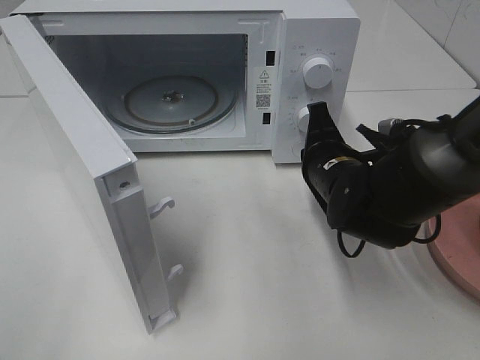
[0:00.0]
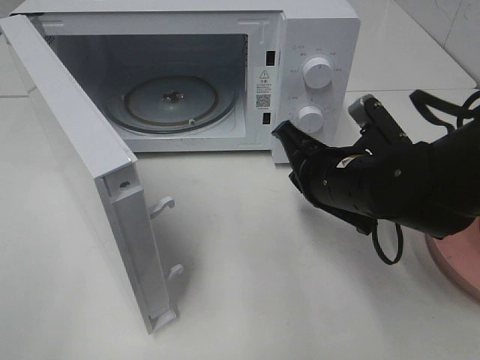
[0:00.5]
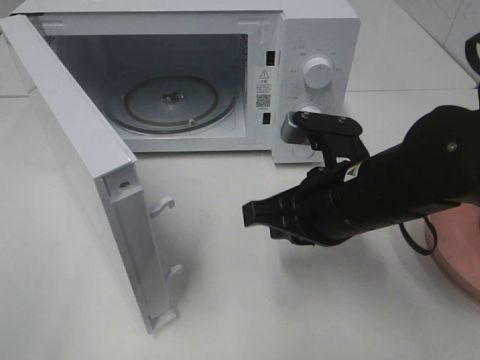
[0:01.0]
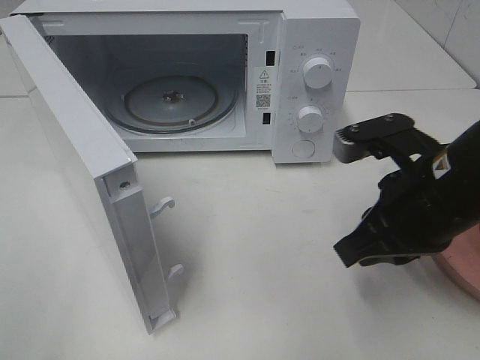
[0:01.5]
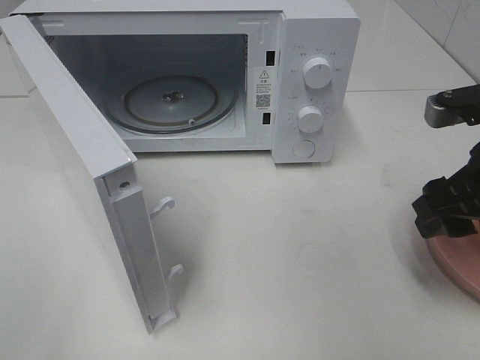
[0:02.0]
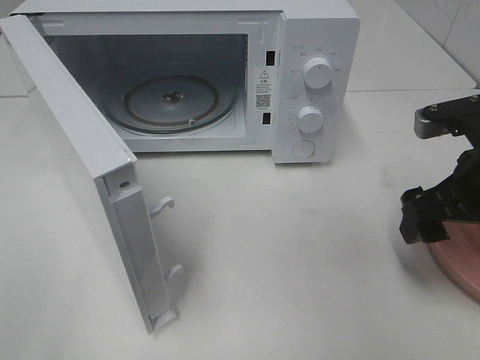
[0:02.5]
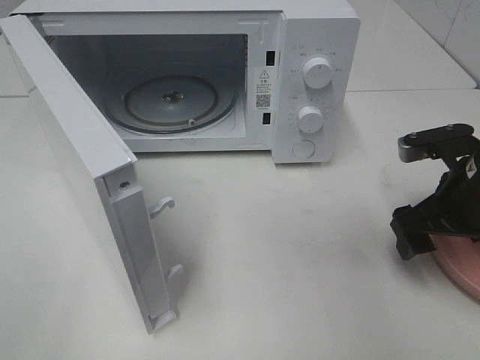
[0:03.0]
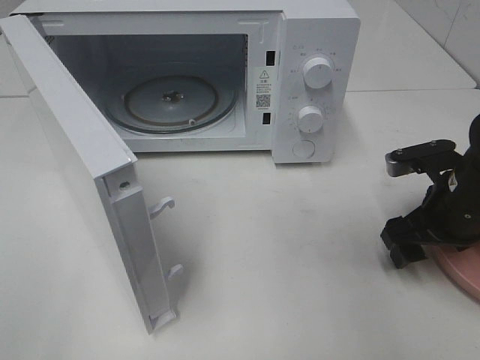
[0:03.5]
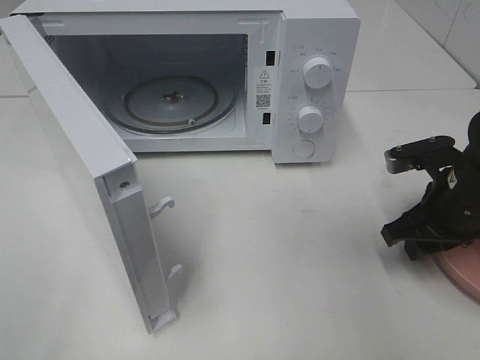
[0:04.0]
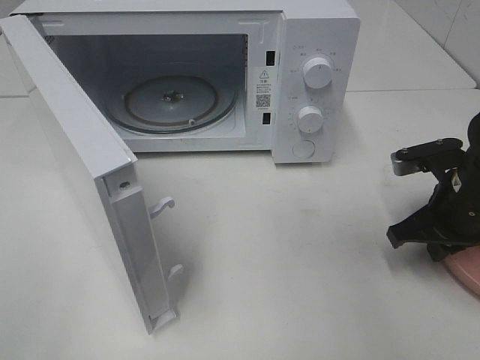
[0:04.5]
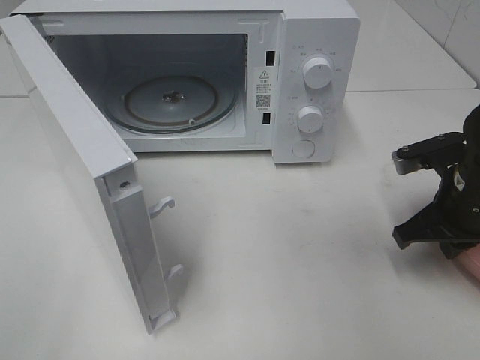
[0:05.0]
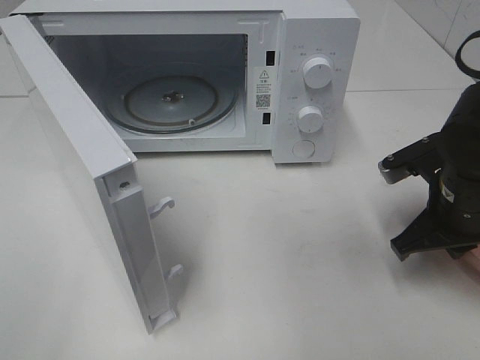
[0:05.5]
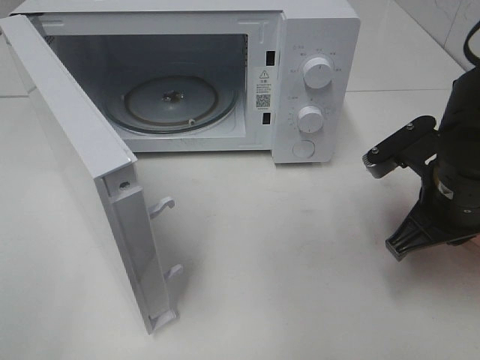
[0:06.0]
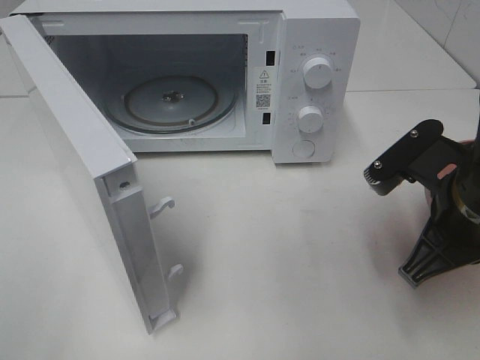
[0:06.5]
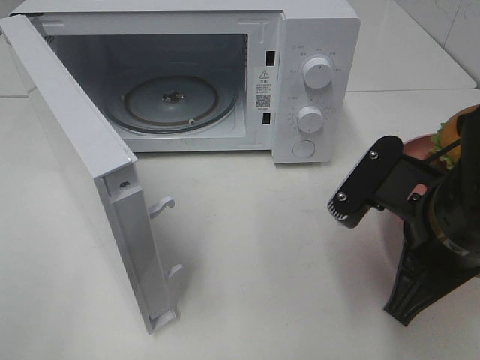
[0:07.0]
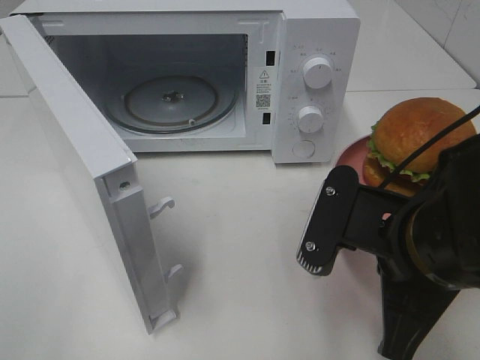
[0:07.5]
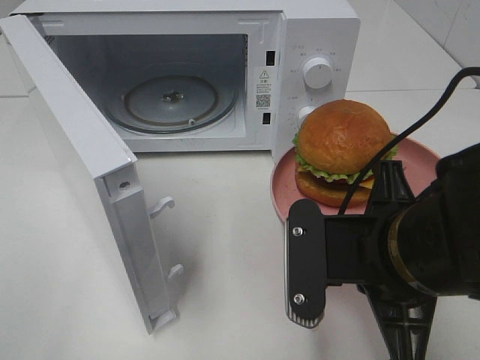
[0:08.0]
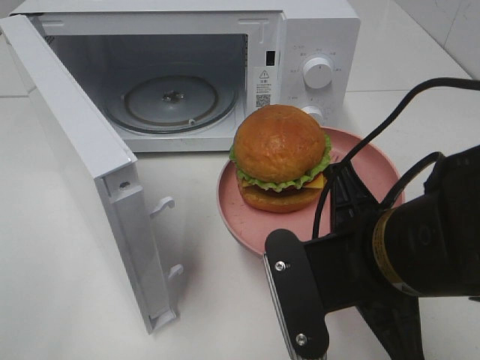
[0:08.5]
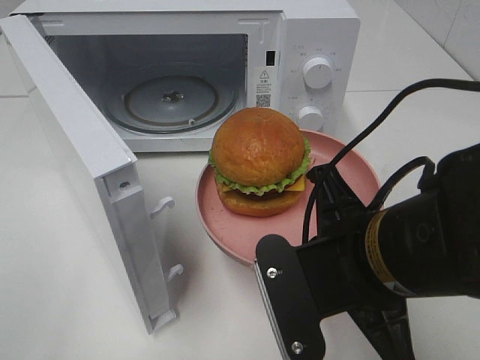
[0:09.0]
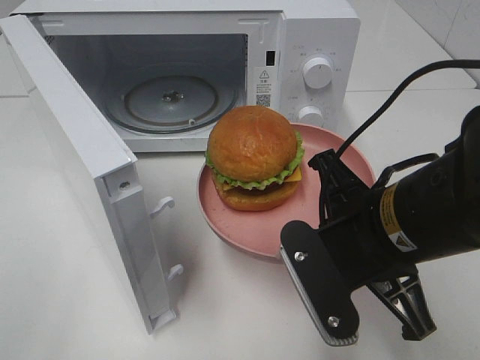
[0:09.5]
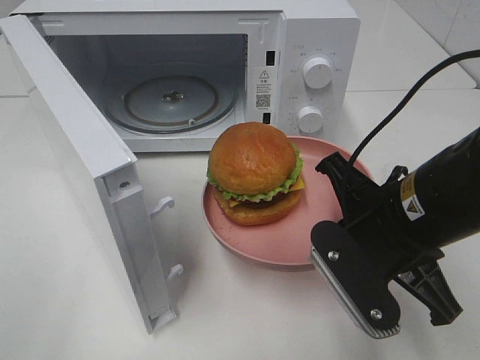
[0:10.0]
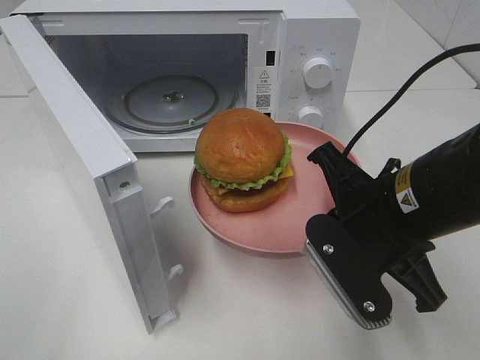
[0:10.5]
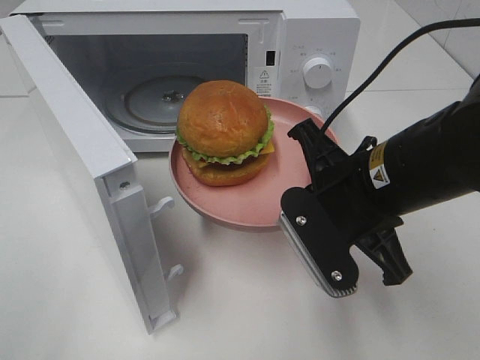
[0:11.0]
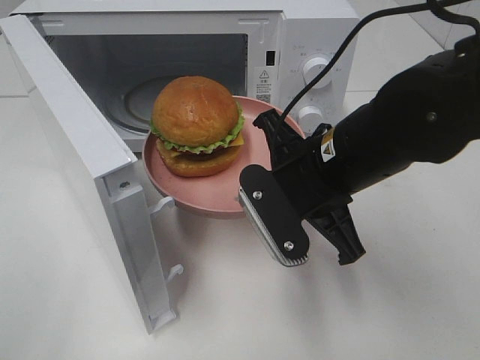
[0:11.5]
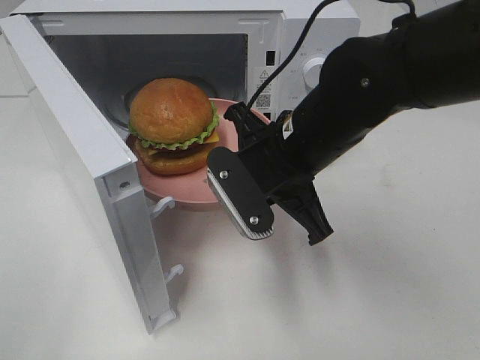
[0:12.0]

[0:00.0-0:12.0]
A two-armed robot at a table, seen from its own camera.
Task of the whole recording: Heat the burger.
Step, 0:00.5 to 0:05.0: Right hand: grab the plate with the hamburger.
0:00.0 to 0:02.0: The right gripper is displaced to the right, upward and backward by approximately 20 cm, and opens its fingers.
0:02.0 to 0:04.0: The right gripper travels downward and forward by about 10 cm.
0:04.0 to 0:06.0: The right gripper changes place by some 5 cm, and closes up.
0:06.0 to 0:08.0: The right gripper goes approximately 15 cm backward and to the left.
0:08.0 to 0:10.0: The right gripper ends up about 5 cm from where it was.
0:10.0 to 0:12.0: The right gripper shifts roughly 10 cm forward and to the left.

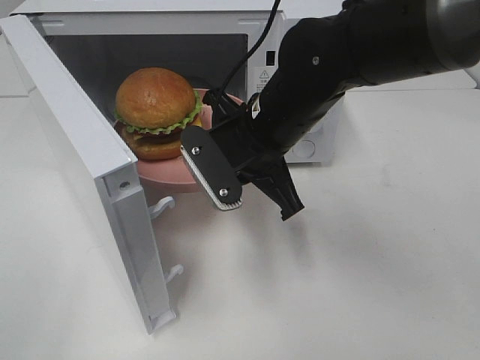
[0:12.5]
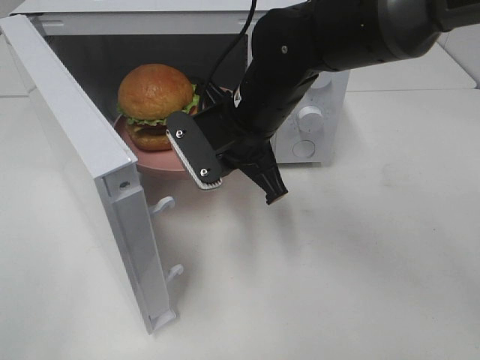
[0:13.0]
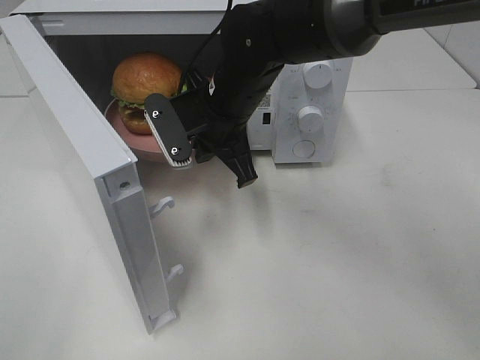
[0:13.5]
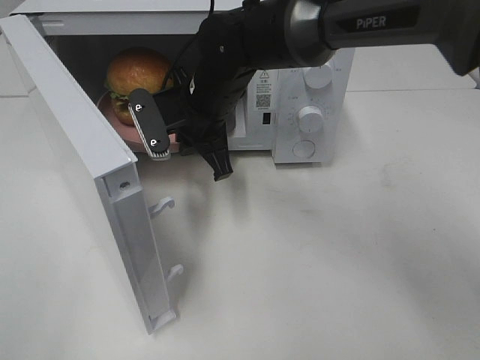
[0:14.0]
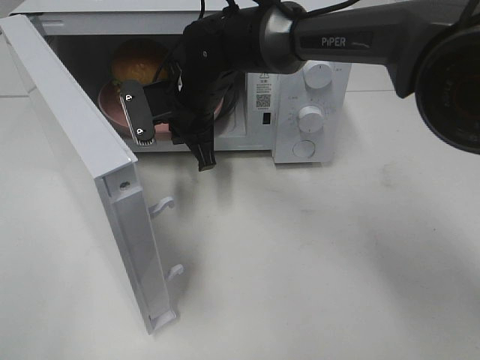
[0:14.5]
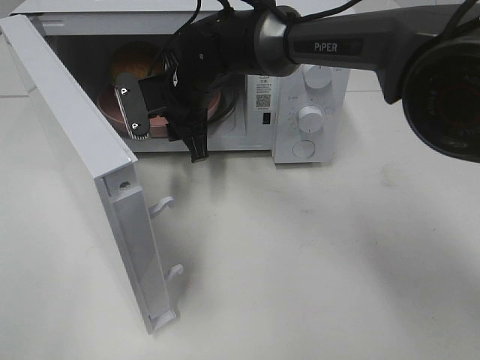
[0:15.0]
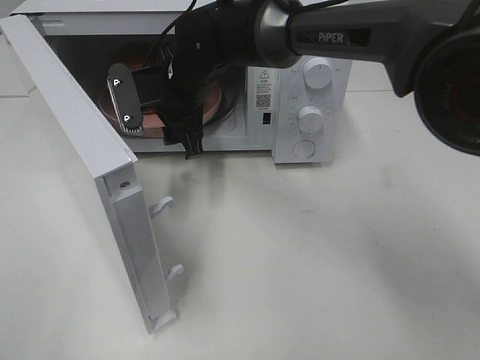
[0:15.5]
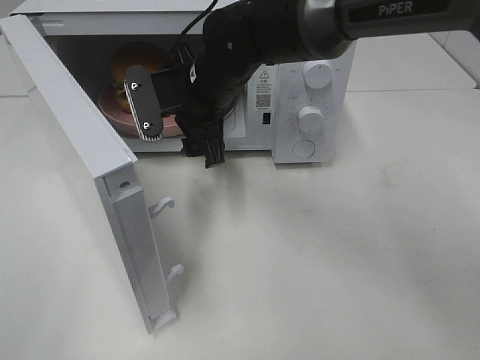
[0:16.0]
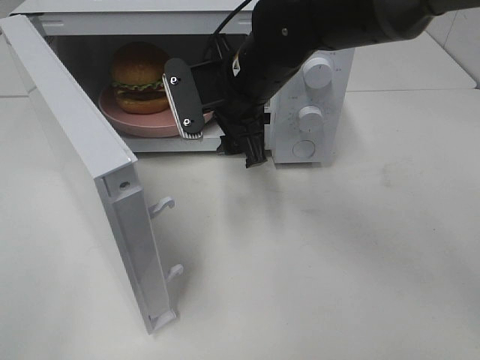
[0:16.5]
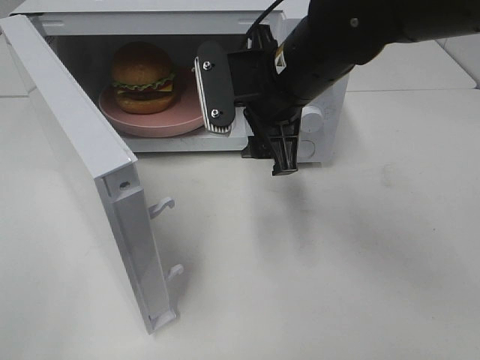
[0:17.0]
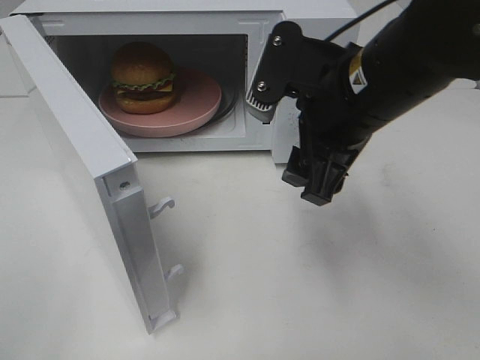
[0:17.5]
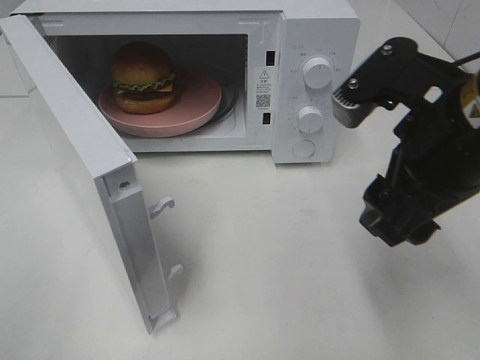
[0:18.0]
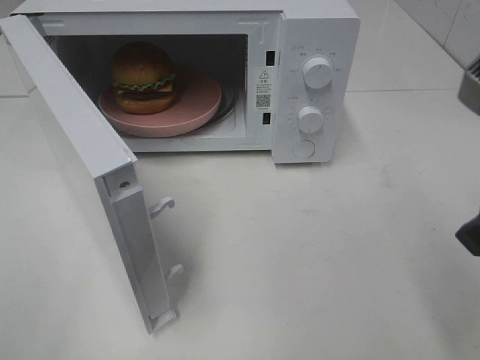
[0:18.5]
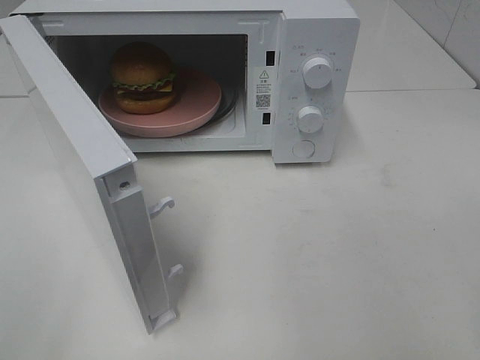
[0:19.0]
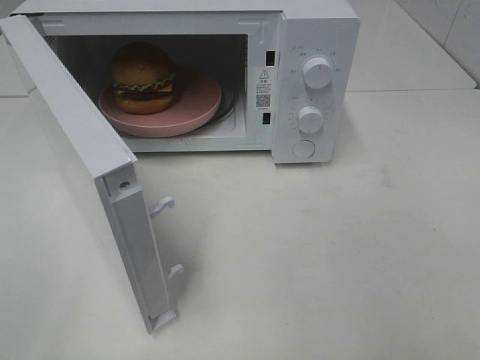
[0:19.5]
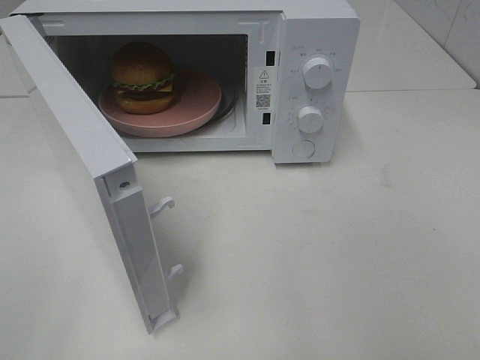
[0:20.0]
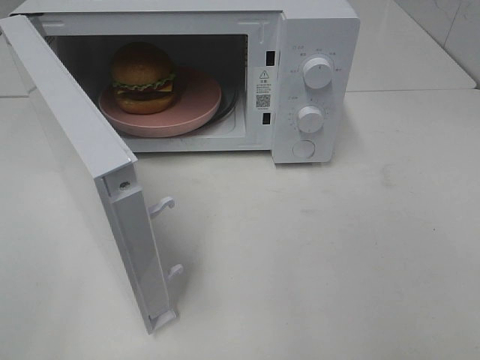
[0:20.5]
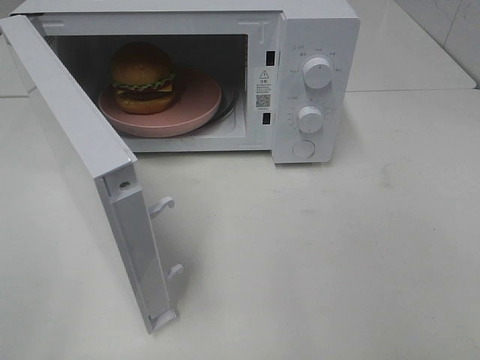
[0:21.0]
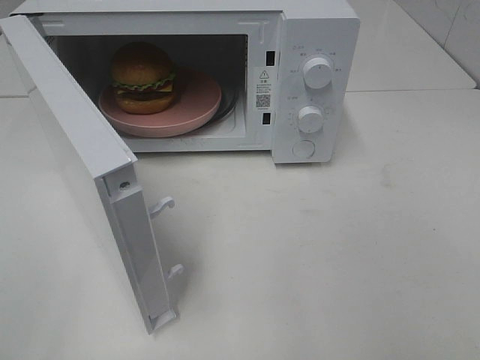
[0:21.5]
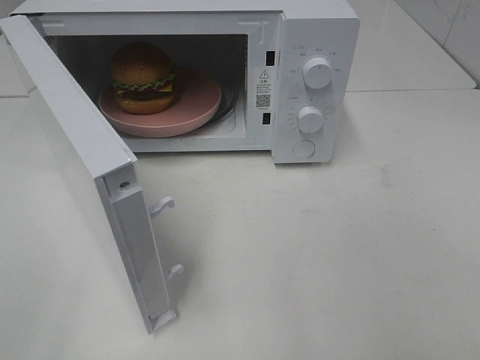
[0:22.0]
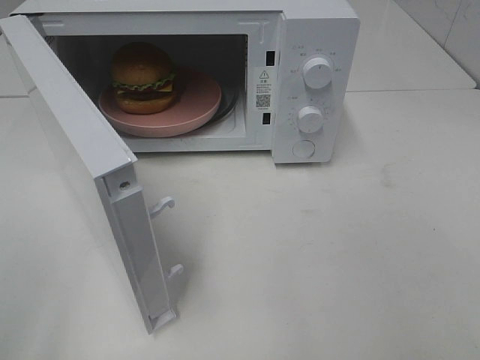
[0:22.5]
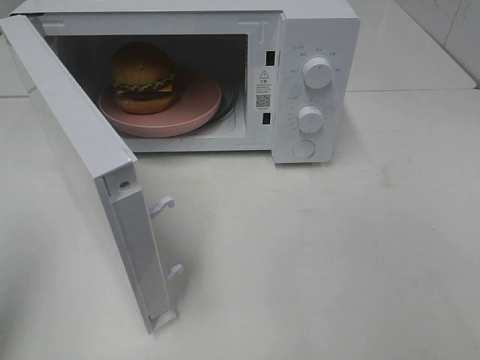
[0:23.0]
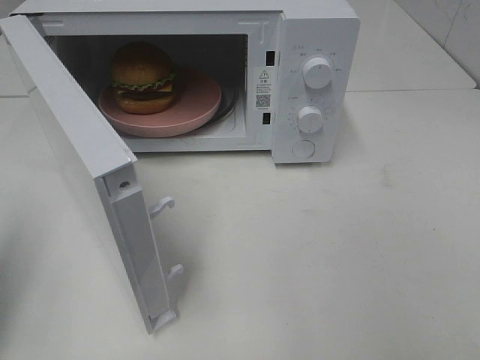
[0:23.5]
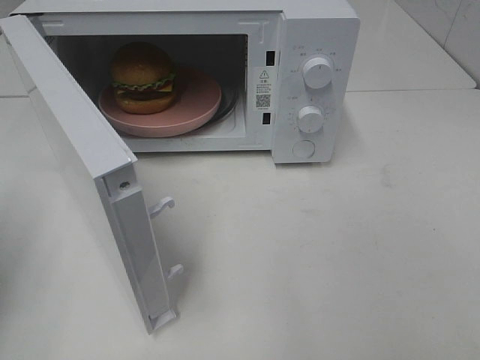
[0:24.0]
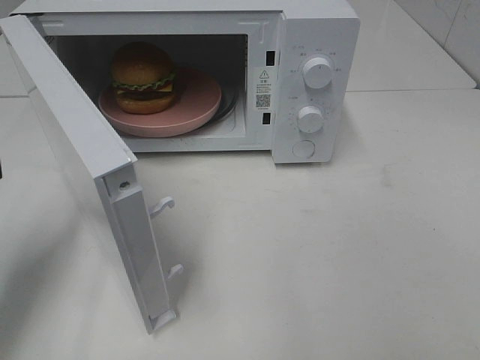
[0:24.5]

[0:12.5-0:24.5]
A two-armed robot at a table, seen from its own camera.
Task of the whole recording: Heat the burger.
Step, 0:12.5 to 0:15.5: Right hand: place the plate in the microwave.
0:12.5 to 0:14.5: The right gripper shifts about 15 cm forward and to the left.
0:14.5 to 0:16.5: The right gripper shifts approximately 10 cm to the right and backward, and opens its fingers.
0:16.5 to 0:18.5: The right gripper travels backward, to the right and upward by some 30 cm.
0:18.5 to 0:20.5: The right gripper travels backward and to the right by some 15 cm.
0:22.5 to 0:24.5: The left gripper moves forward and downward, approximately 20 cm, and closes its fingers.

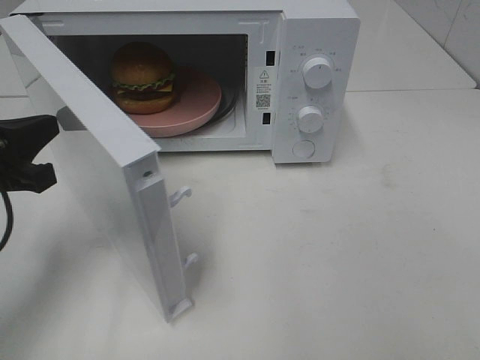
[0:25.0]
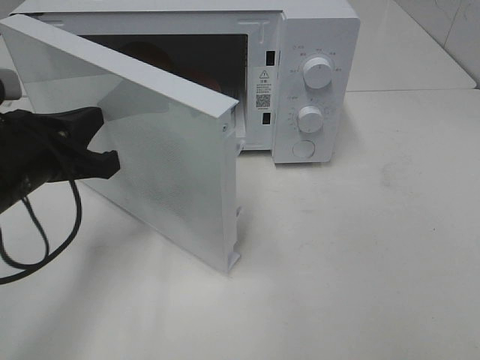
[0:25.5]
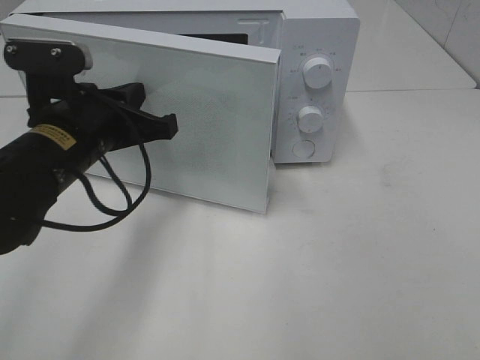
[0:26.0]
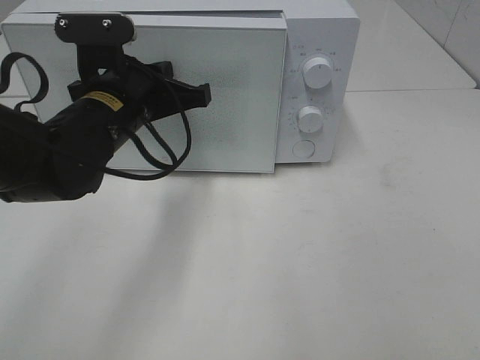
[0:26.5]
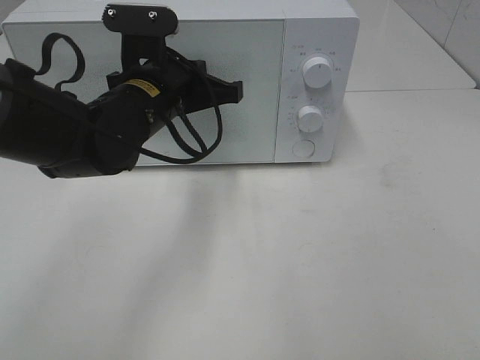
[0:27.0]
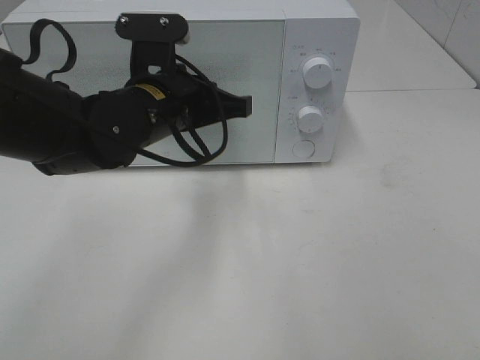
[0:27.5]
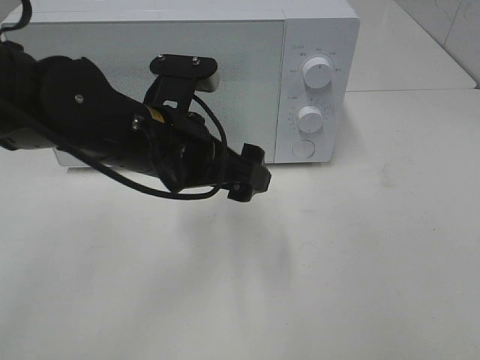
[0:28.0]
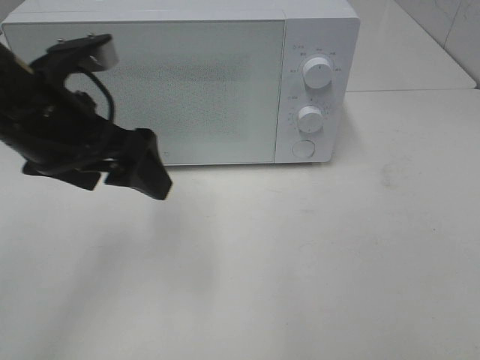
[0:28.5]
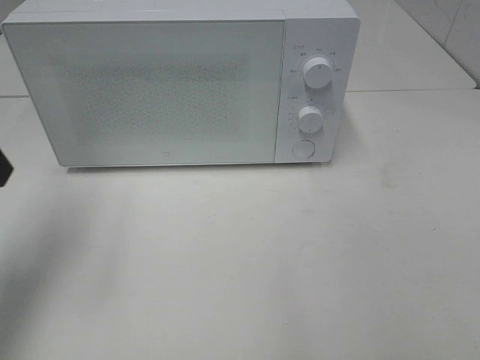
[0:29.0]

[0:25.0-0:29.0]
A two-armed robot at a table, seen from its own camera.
Task of the whole recording: Heat the burger.
Step, 0:25.0 to 0:27.5: Left hand: close the microwave door.
0:25.0 to 0:27.0: The left gripper heads to the right and forward, covering roughly 20 cm.
0:27.0 to 0:29.0: The left gripper heads to the left, upward and backward, covering roughly 25 cm, and opens its fingers.
